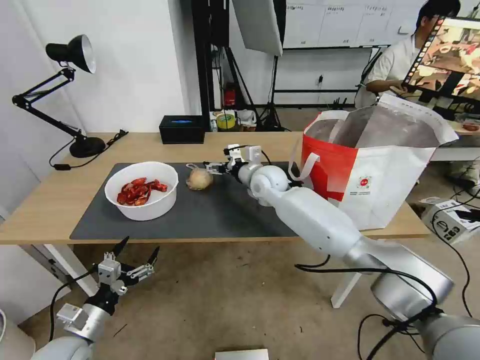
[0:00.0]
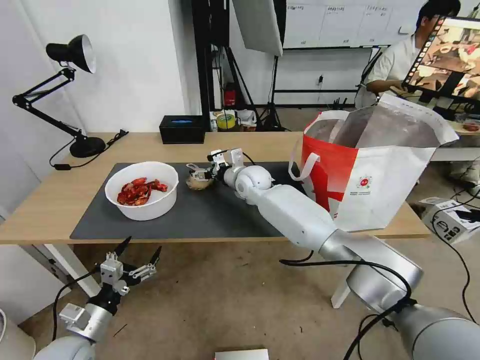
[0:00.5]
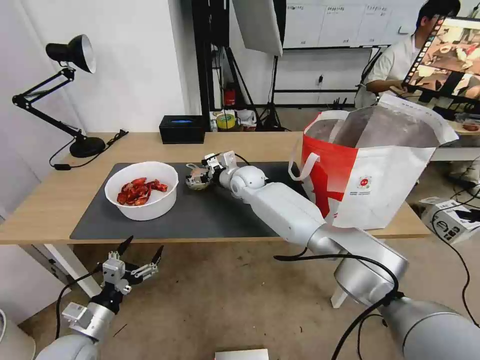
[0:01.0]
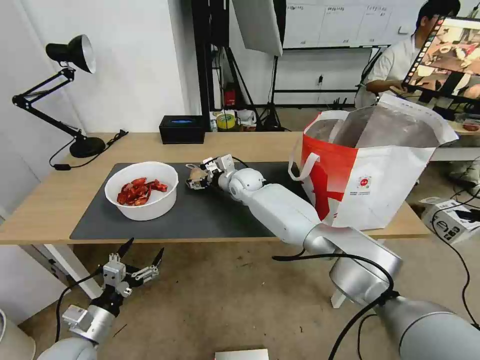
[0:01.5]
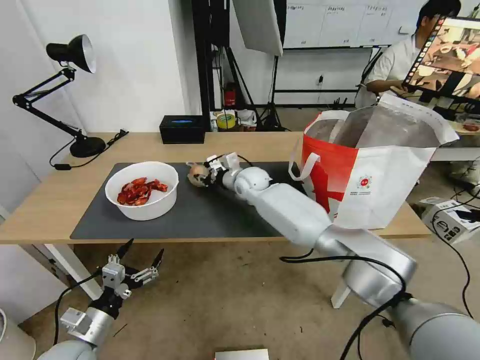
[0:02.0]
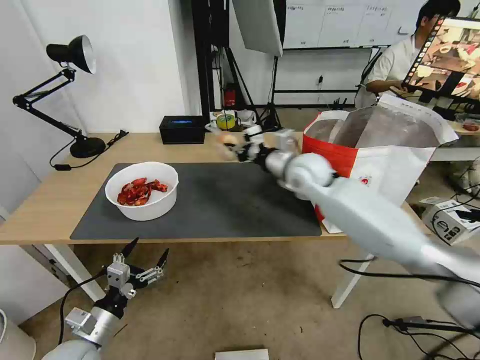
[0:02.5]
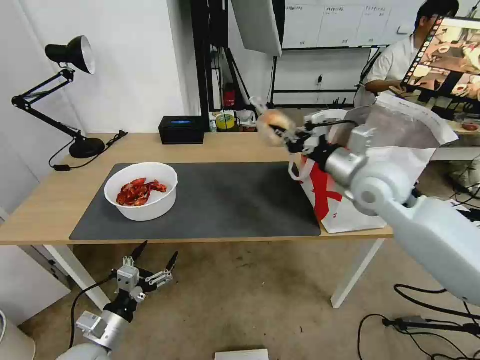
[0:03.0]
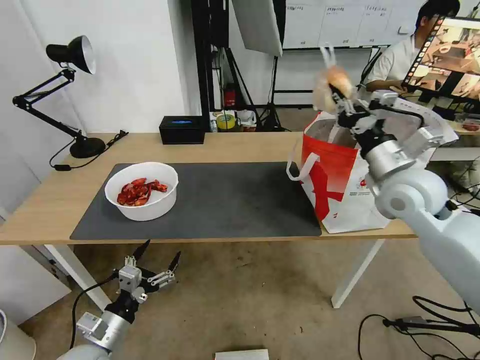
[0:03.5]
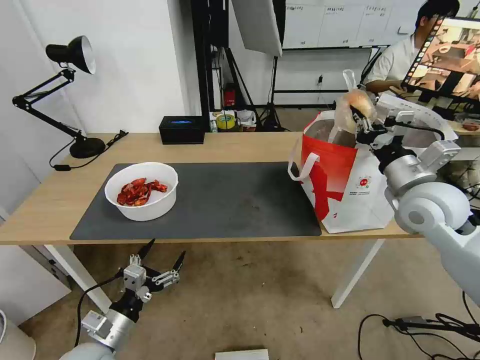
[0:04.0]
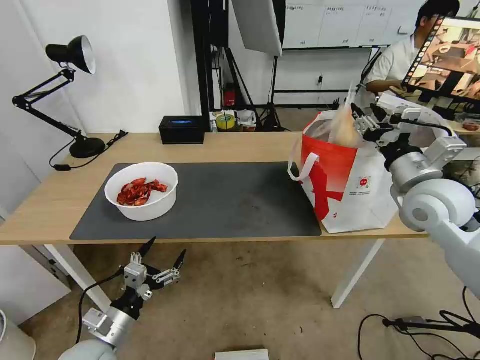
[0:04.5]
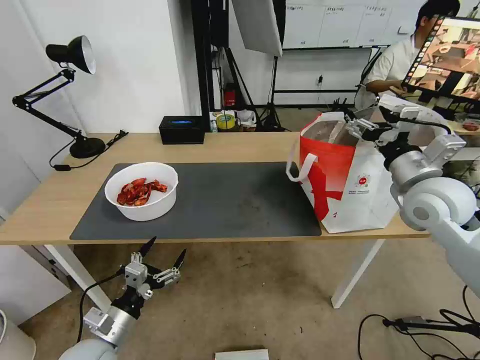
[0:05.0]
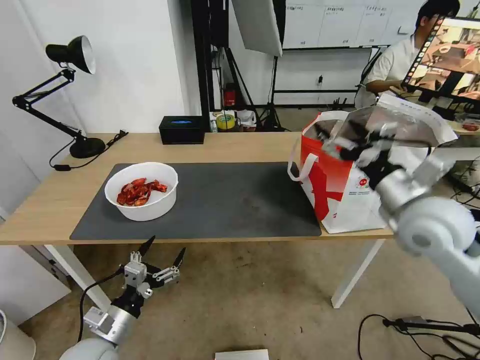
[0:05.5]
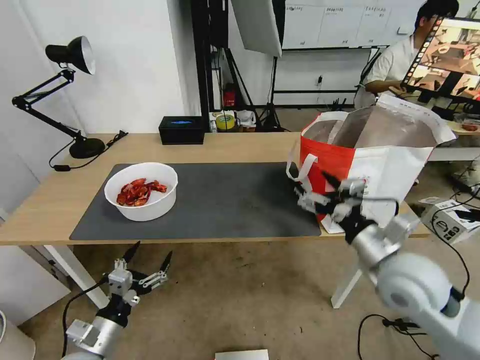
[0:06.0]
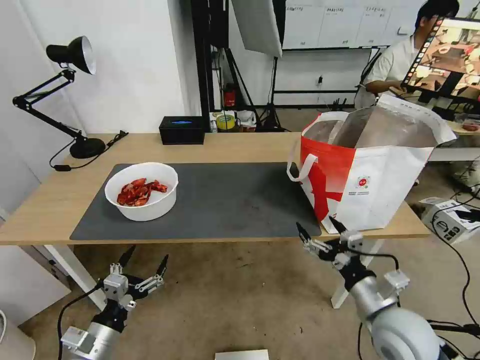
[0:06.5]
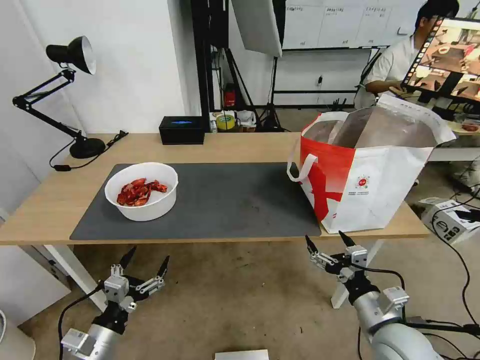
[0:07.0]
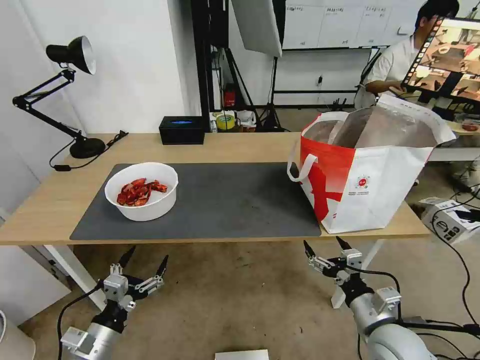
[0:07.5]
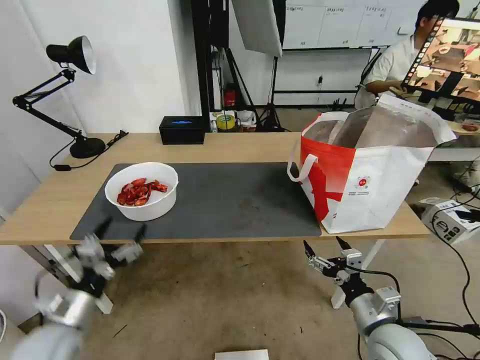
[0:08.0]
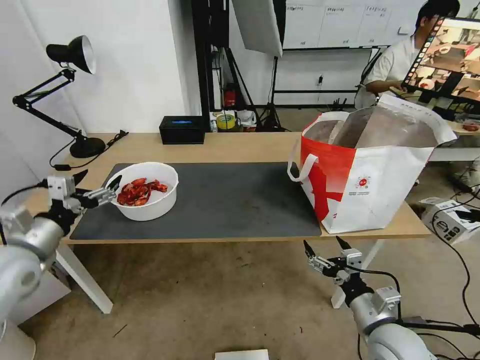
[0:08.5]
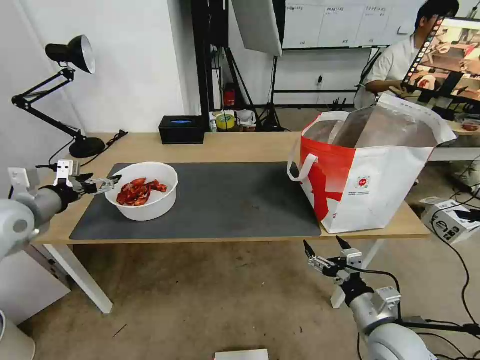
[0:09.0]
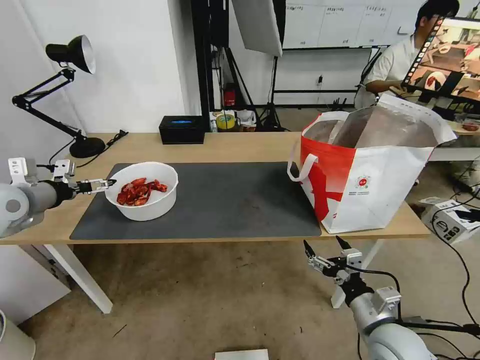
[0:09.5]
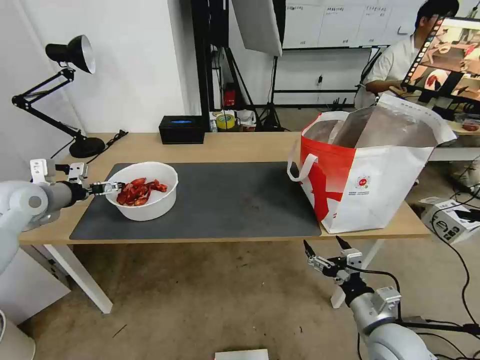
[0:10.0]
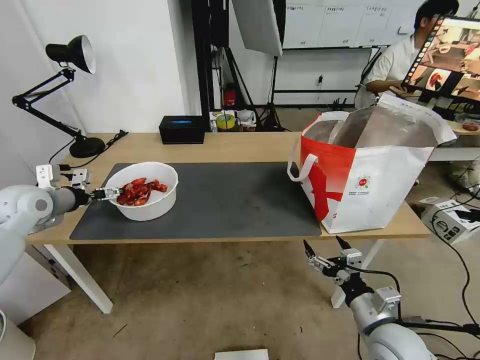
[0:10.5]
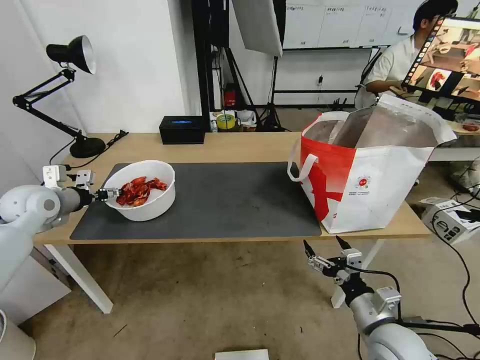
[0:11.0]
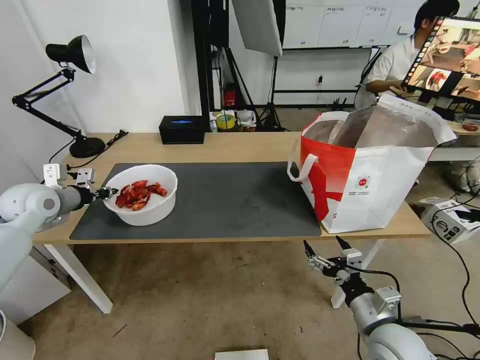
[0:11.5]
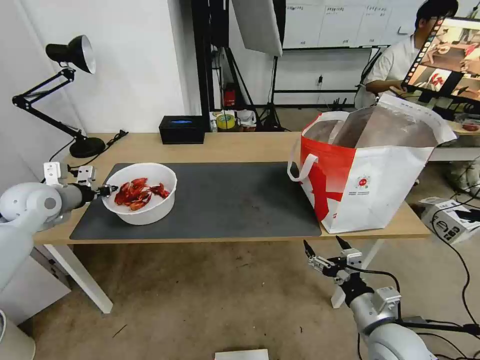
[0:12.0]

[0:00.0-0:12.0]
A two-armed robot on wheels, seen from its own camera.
Task of the whole recording: Pick up the trash from the table and place it into the takeout bag.
0:00.0 to 0:02.0: The right gripper changes place by about 5 cm, and closes its fingers.
0:02.0 to 0:04.0: The right gripper heads to the right, backward and upward, covering roughly 40 cm.
0:04.0 to 0:06.0: The right gripper moves backward, downward and to the left, roughly 15 cm, and opens up.
0:06.0 to 0:08.0: The left gripper moves about 5 cm, while the right gripper moves downward and backward, some 15 cm.
0:08.0 to 0:10.0: The left gripper shifts about 30 cm forward, upward and to the left.
0:10.0 to 0:12.0: The left gripper closes up.

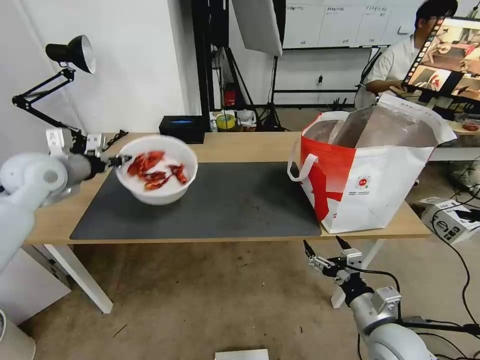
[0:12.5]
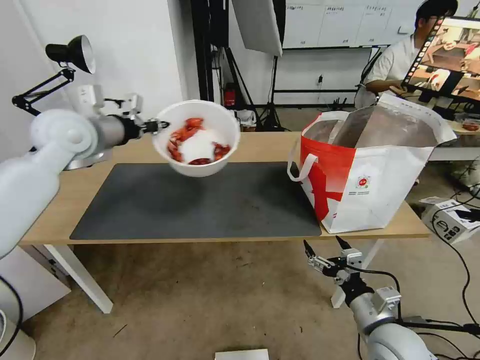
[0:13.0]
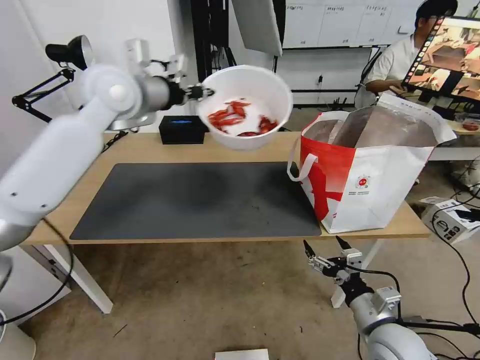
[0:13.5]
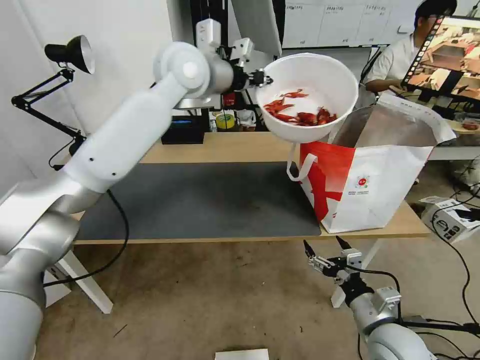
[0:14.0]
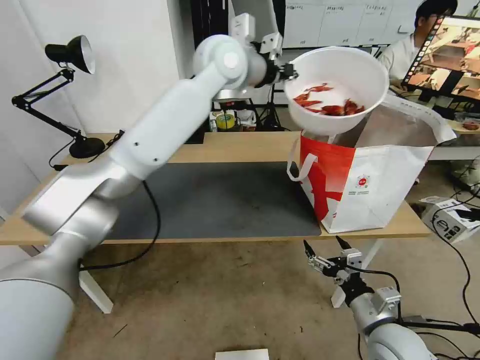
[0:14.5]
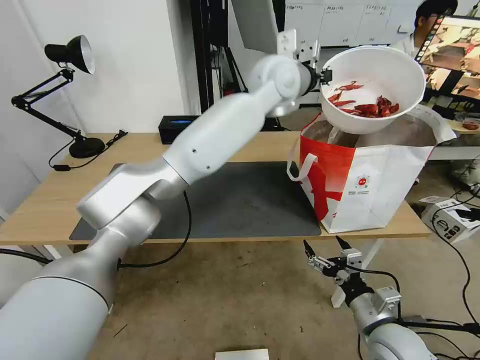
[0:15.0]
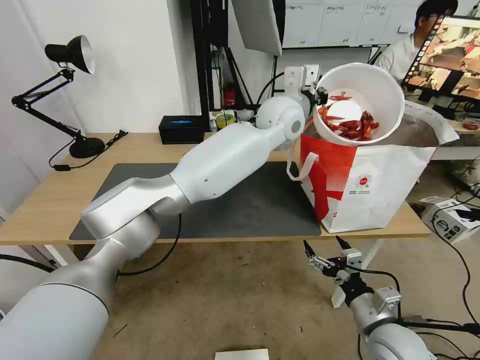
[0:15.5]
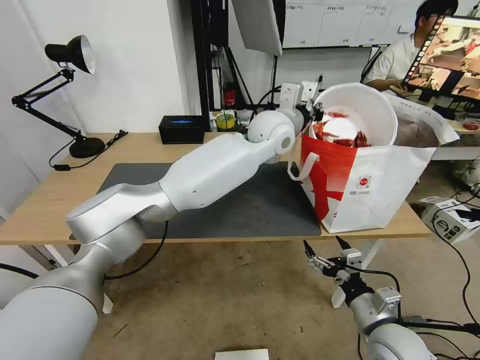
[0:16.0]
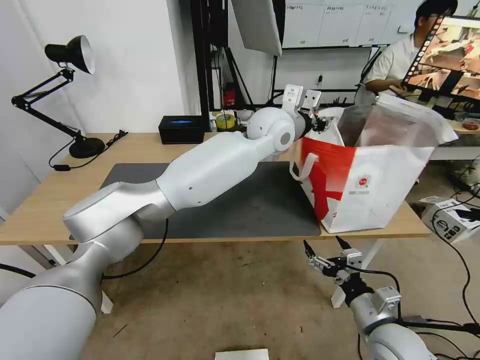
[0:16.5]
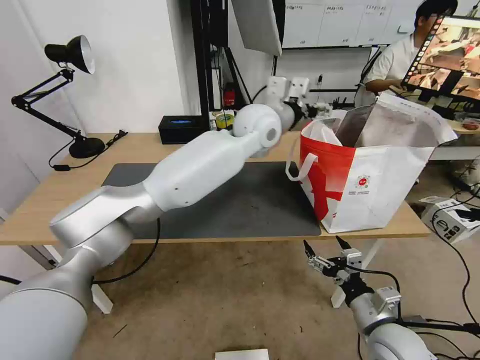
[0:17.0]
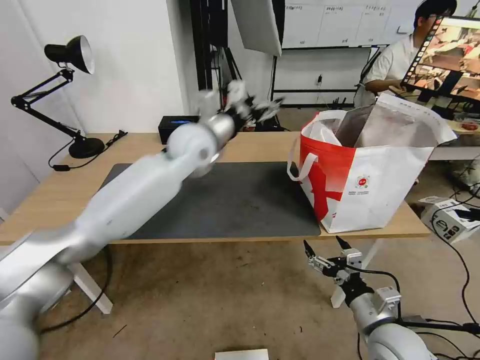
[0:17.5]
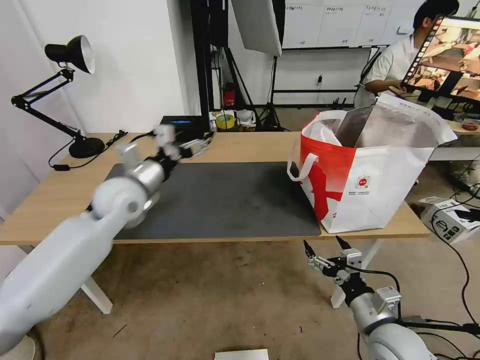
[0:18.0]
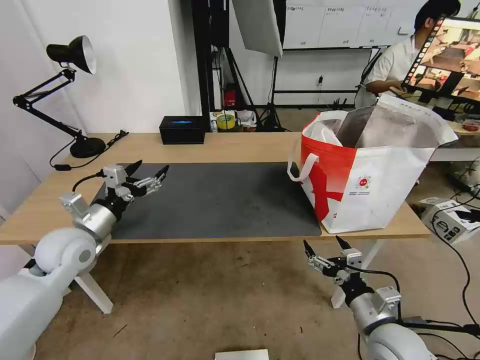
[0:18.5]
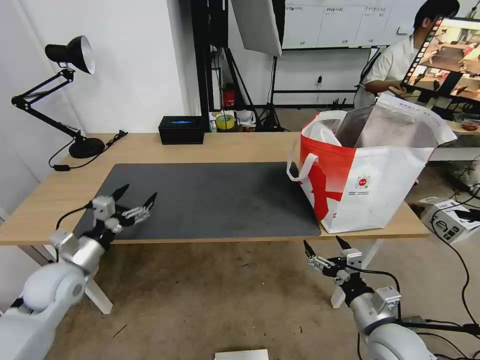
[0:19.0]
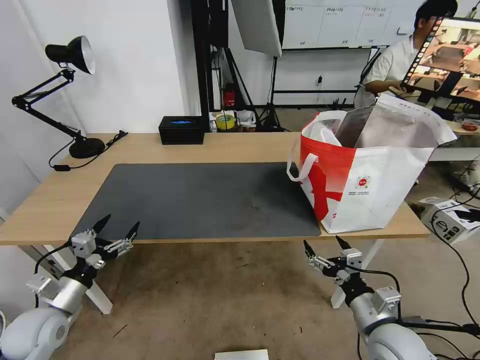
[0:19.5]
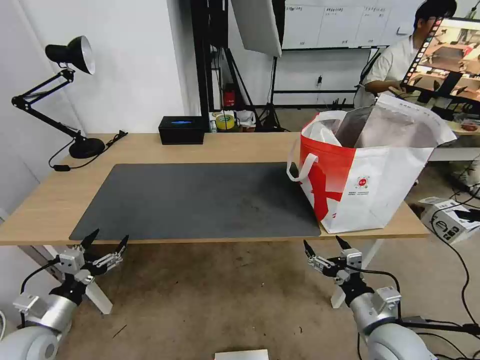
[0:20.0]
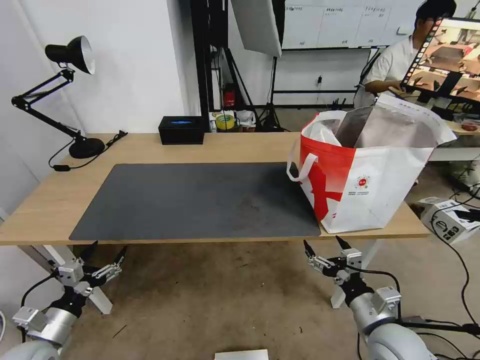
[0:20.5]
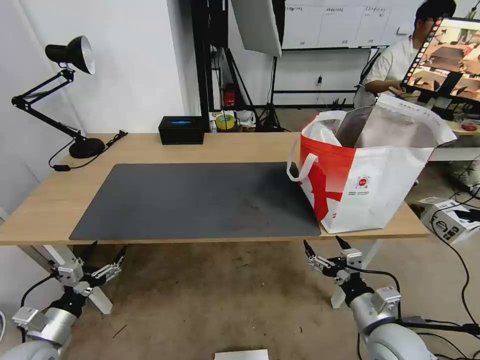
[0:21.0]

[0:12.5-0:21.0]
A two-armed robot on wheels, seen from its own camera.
Task of the whole recording: Pick up the trash from the table and place it into the takeout bag.
0:12.5 to 0:14.5: The left gripper travels to the right and upward by approximately 40 cm.
0:14.5 to 0:16.5: The left gripper travels downward and to the right by approximately 15 cm, and opens up.
0:16.5 to 0:19.0: The left gripper is displaced to the left, downward and backward by roughly 50 cm, and opens its fingers.
0:19.0 to 0:21.0: The left gripper shifts some 20 cm backward and downward.

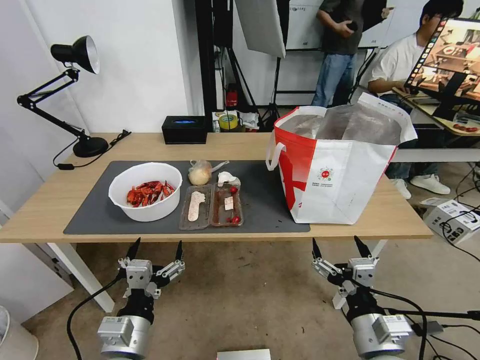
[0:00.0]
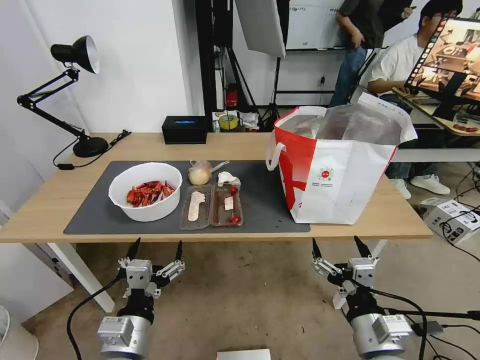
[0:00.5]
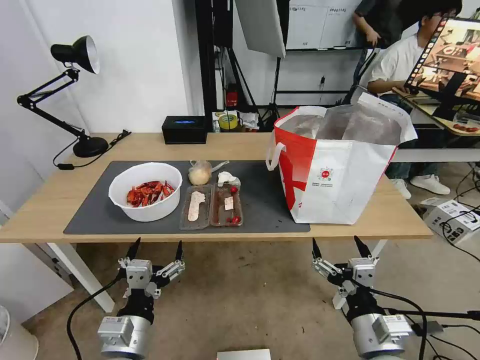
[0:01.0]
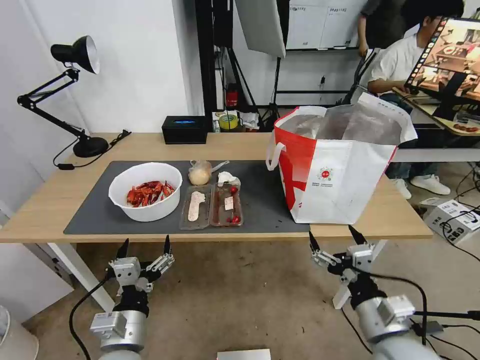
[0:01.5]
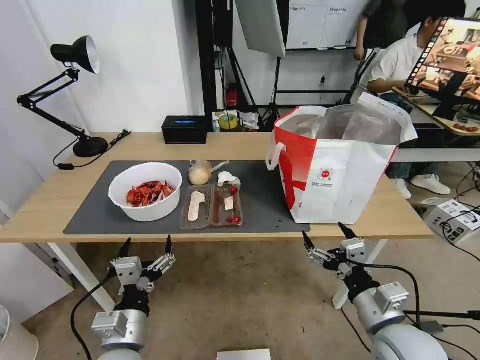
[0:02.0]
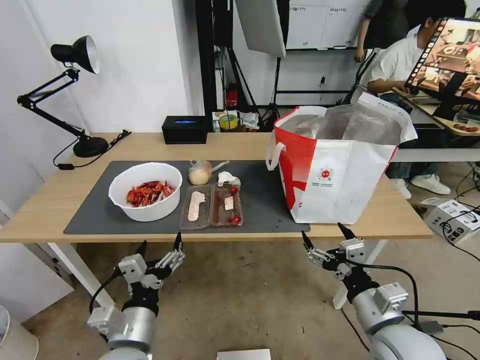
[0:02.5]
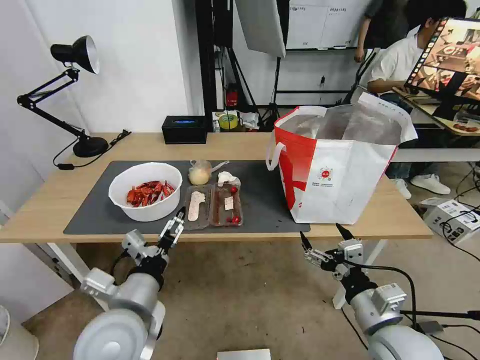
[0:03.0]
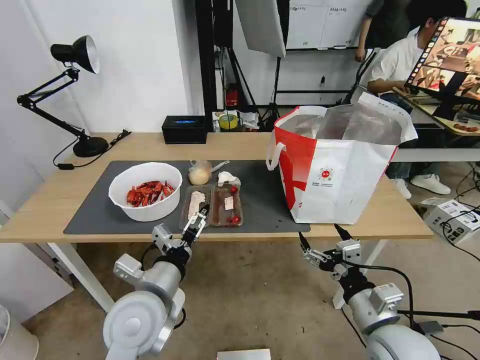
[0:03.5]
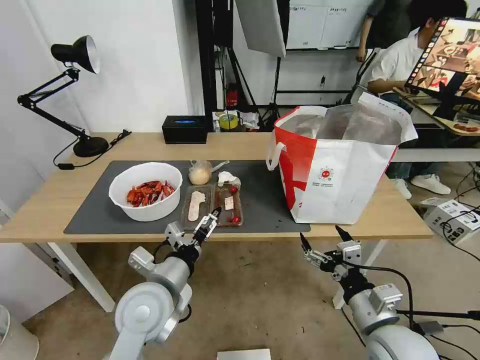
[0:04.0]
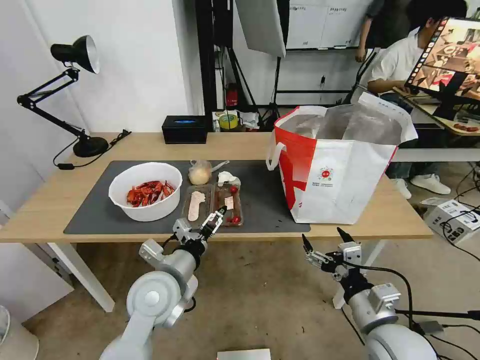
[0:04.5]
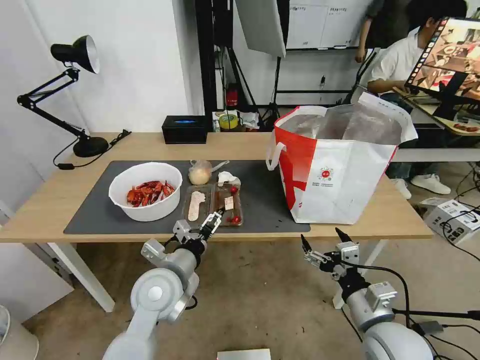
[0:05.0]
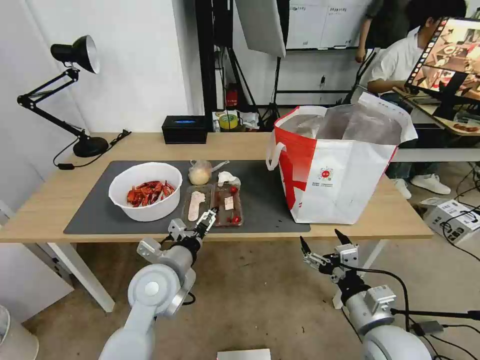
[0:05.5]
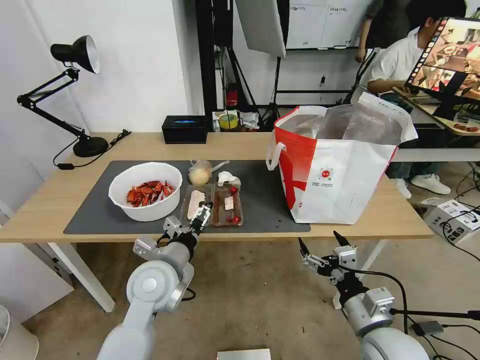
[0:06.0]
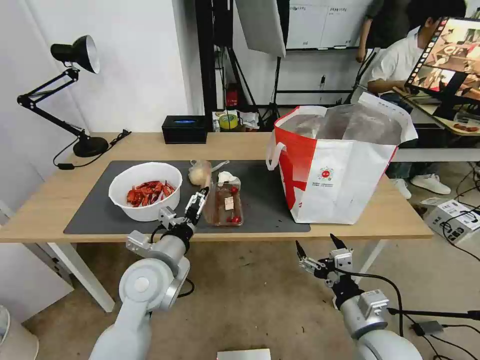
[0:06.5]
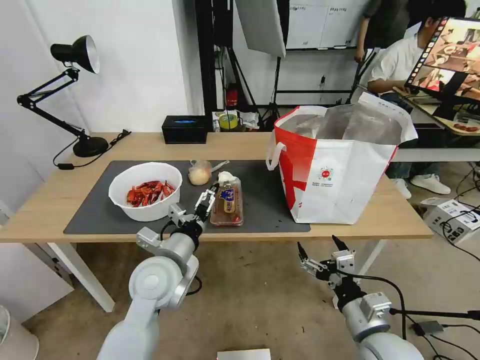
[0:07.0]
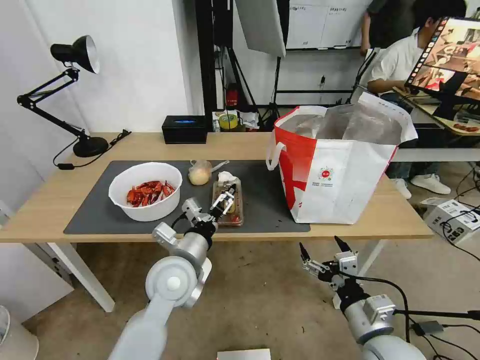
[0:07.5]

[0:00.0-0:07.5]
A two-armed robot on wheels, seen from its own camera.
Task of the whole recording: Pick up the trash from the table and place it into the takeout bag.
0:02.0 to 0:04.0: The left gripper moves forward and upward, roughly 10 cm.
0:04.0 to 0:07.5: The grippers move only a little.
